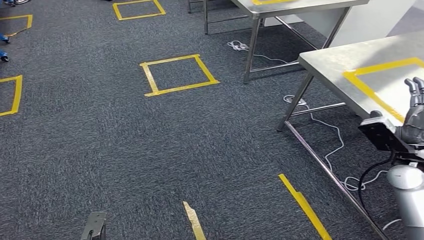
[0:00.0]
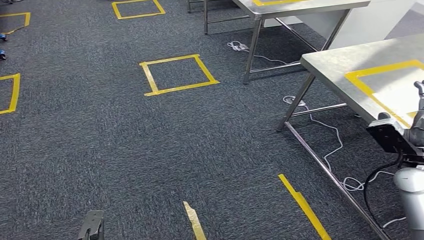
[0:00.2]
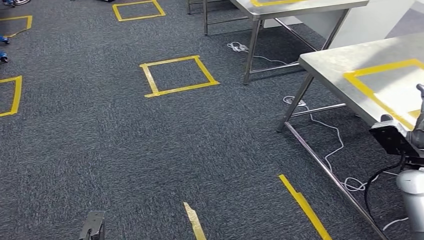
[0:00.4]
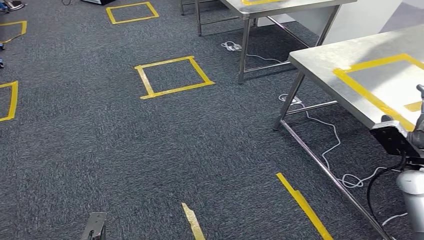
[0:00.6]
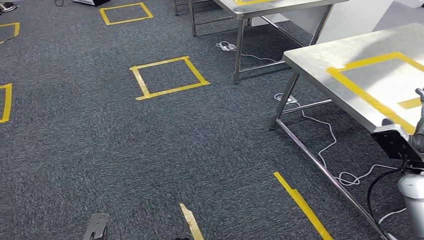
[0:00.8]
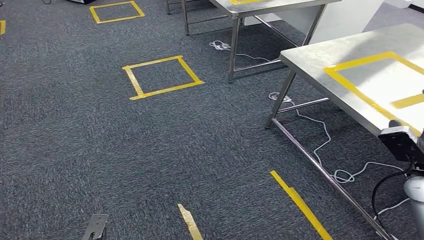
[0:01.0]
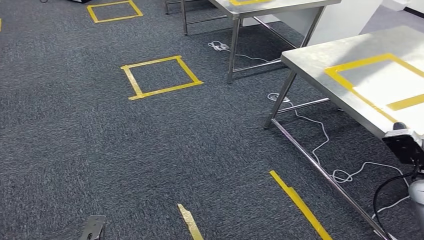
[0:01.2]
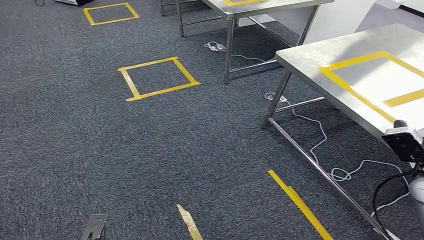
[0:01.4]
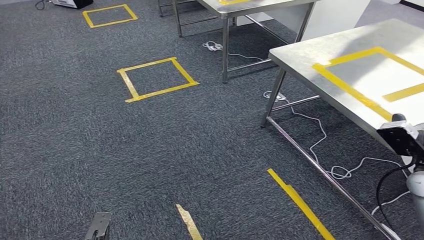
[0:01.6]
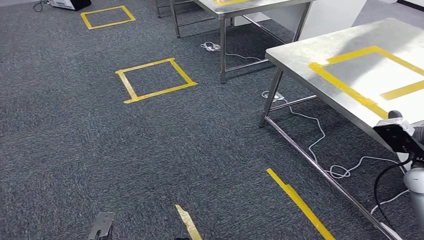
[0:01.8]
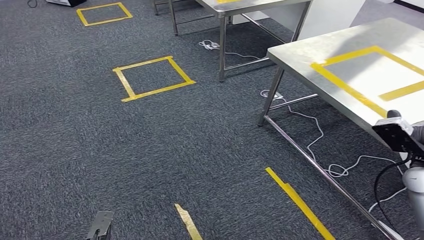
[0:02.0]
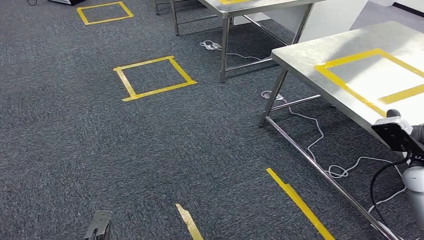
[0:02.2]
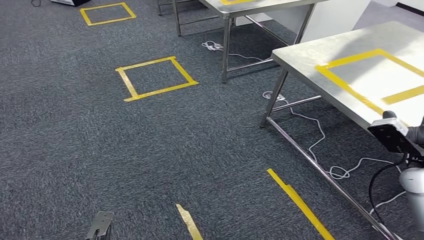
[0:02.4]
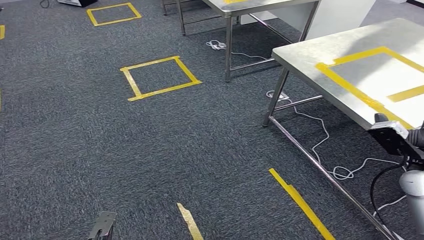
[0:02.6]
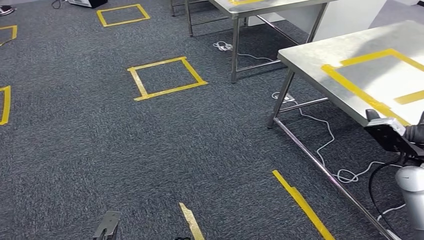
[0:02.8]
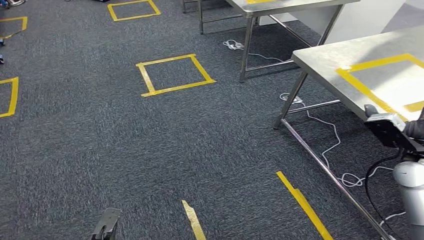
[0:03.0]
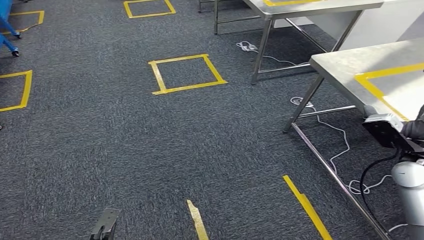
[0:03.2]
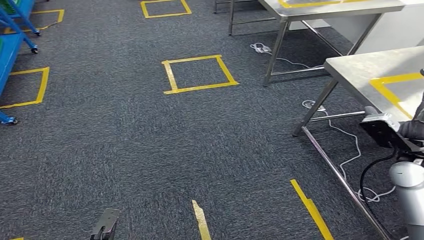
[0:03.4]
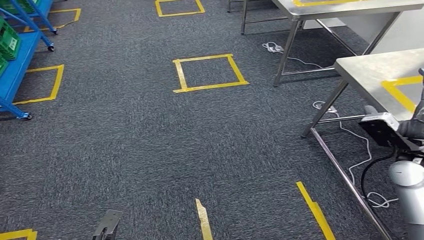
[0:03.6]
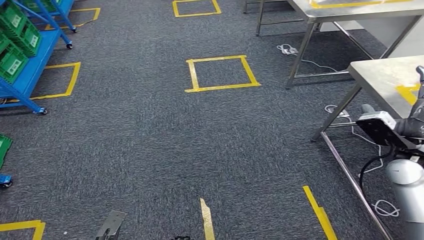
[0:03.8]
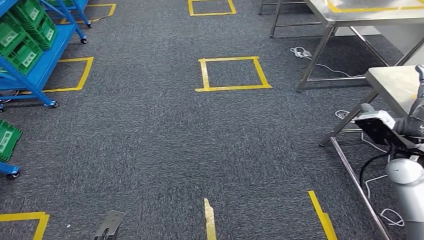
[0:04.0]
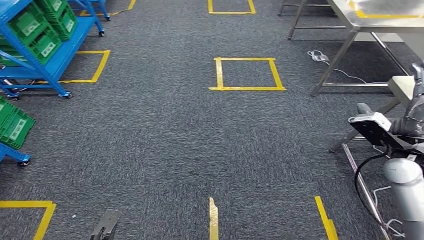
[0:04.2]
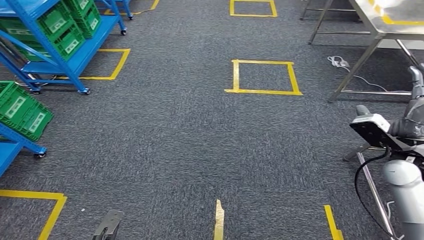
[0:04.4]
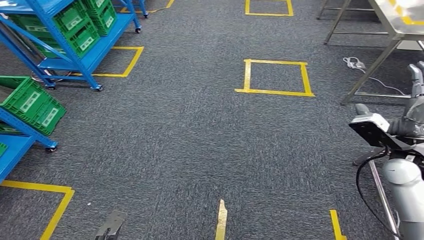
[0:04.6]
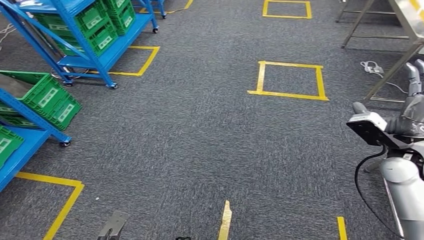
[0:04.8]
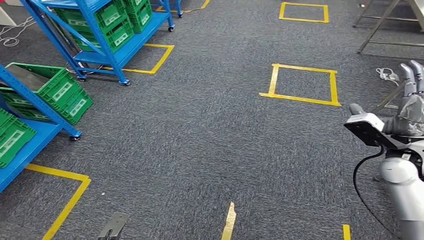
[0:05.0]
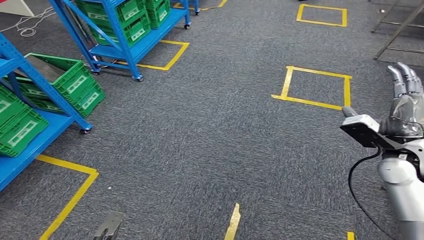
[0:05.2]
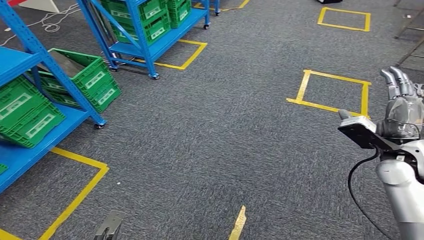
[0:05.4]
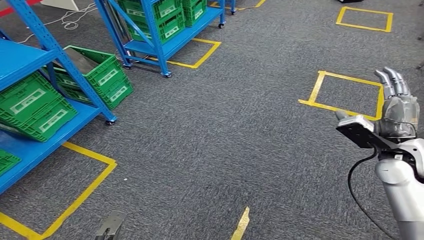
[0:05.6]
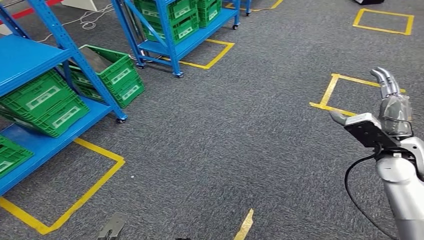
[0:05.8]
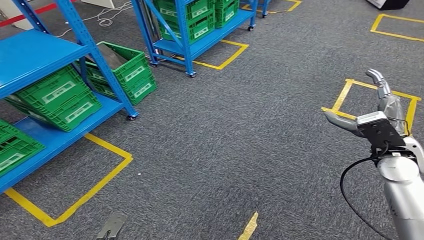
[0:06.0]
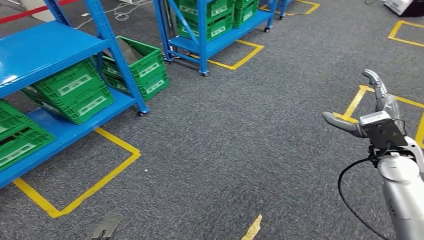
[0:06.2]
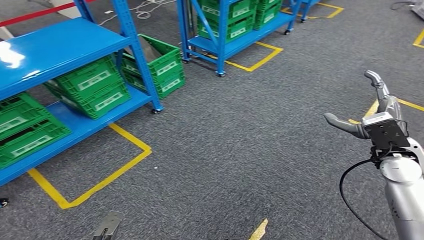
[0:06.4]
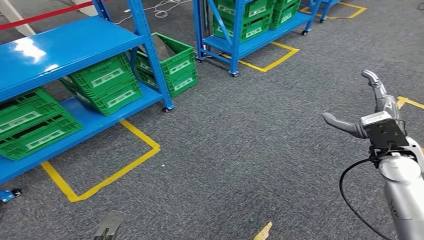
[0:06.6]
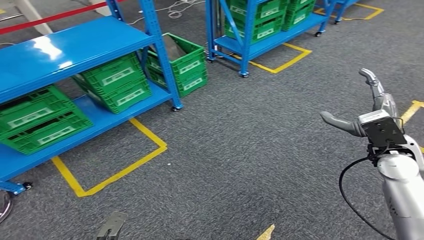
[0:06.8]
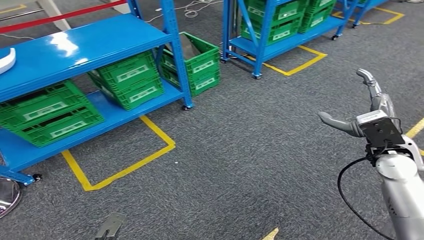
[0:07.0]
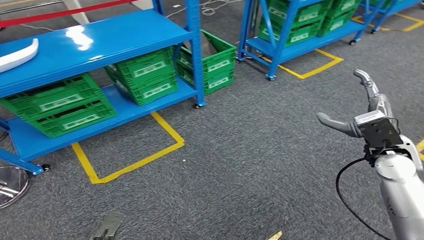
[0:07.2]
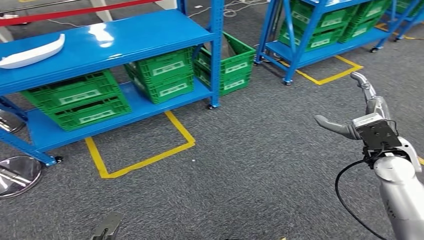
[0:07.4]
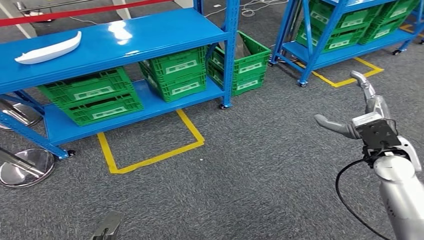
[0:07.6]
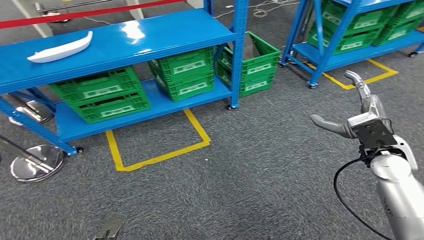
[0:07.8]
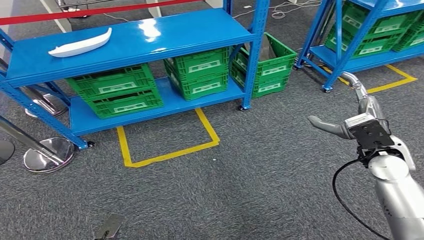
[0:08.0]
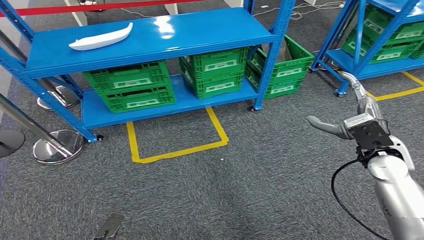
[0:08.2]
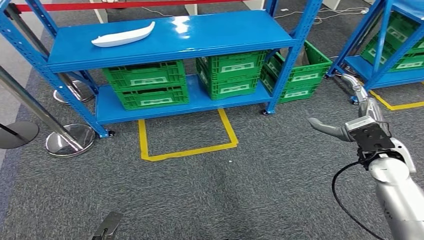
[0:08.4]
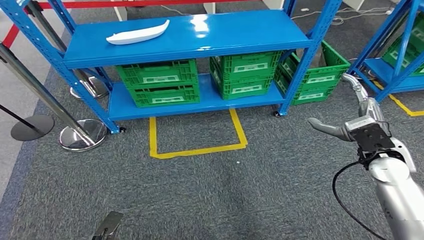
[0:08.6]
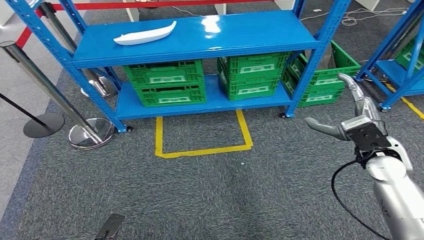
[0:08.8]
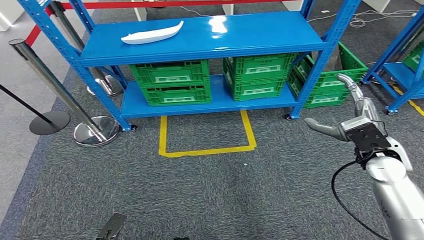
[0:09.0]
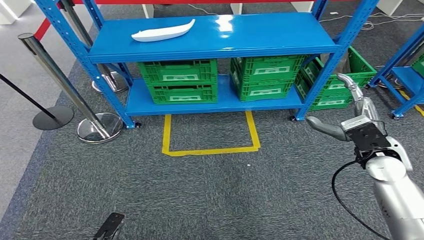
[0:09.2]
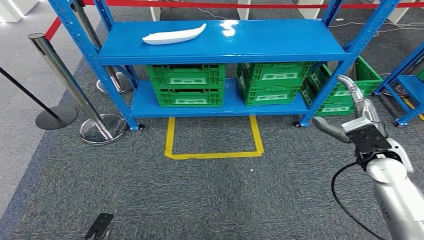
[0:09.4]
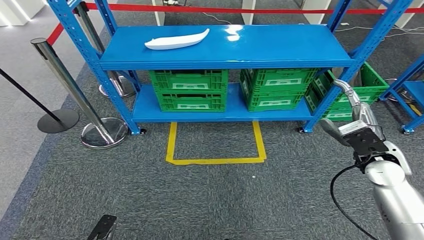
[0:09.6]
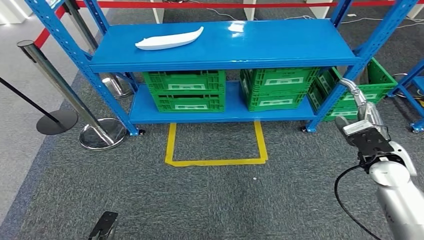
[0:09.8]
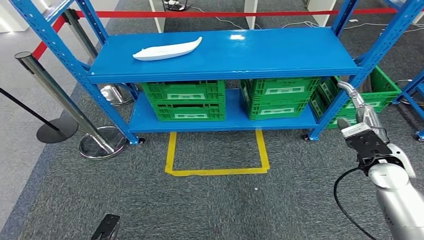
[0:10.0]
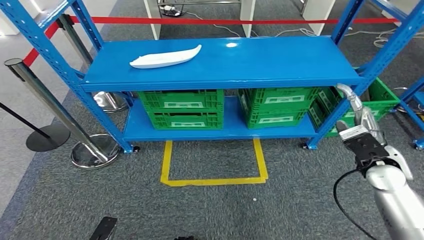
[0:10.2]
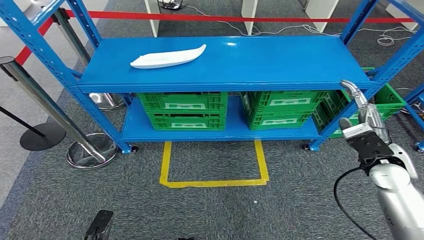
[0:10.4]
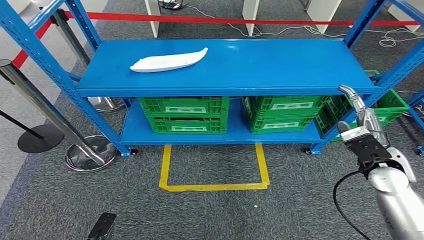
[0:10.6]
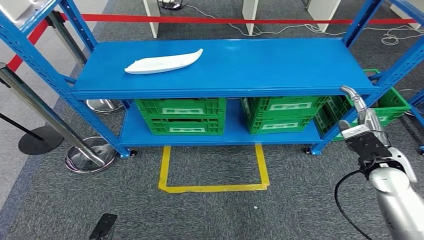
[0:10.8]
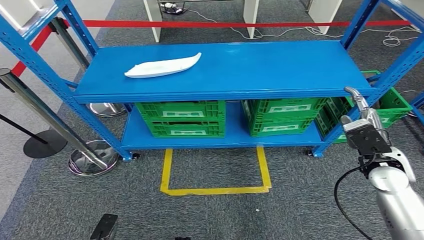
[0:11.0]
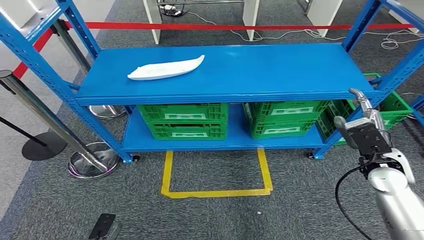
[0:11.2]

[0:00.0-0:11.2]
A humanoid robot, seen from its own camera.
Step, 0:00.0 to 0:11.0: Return to the initial position at the workbench.
